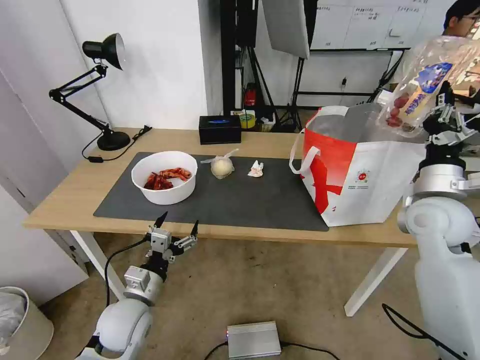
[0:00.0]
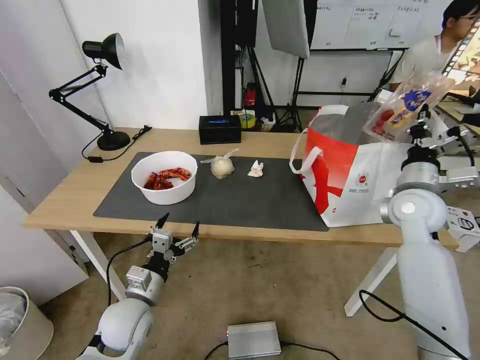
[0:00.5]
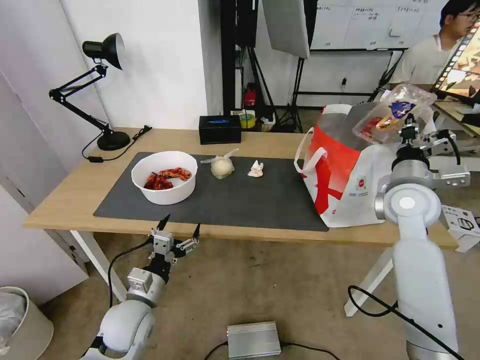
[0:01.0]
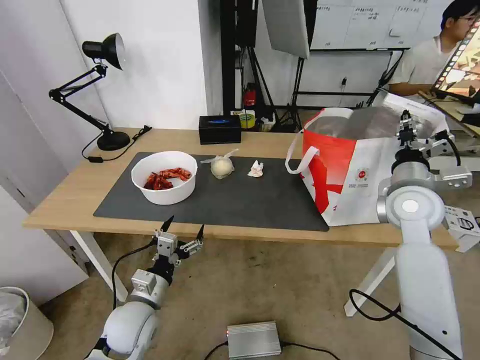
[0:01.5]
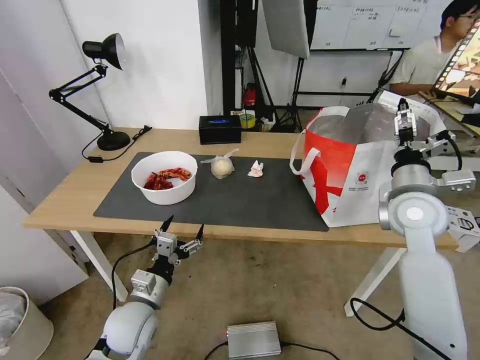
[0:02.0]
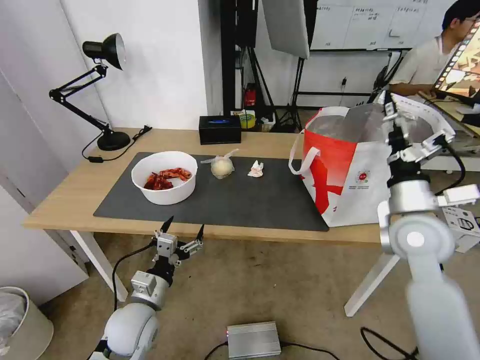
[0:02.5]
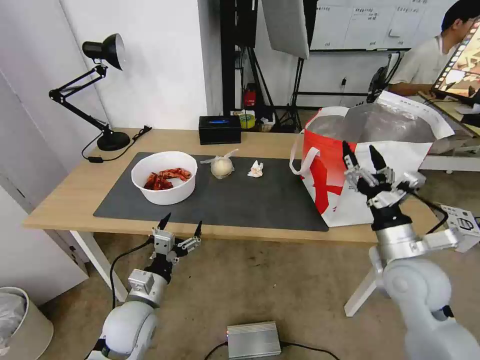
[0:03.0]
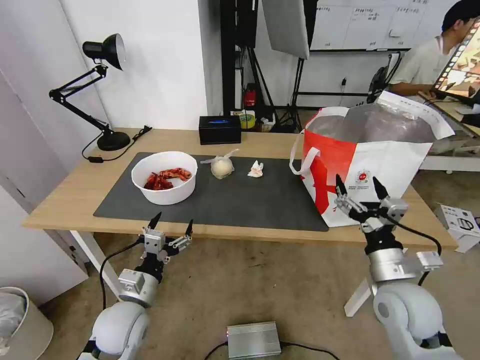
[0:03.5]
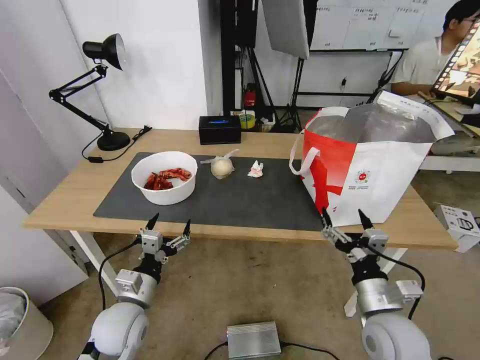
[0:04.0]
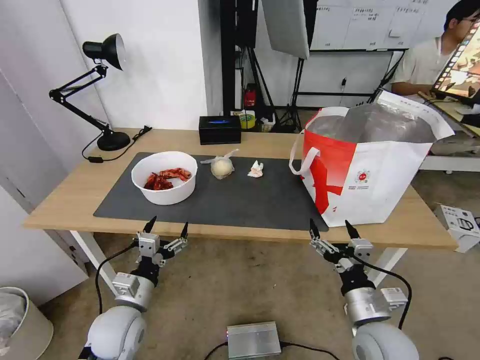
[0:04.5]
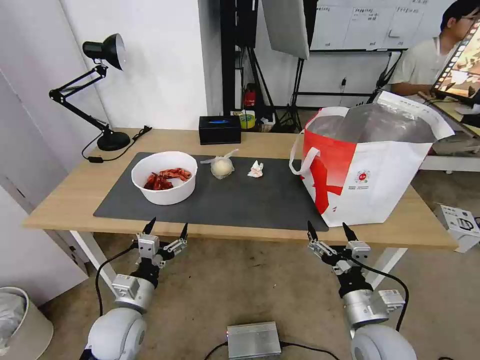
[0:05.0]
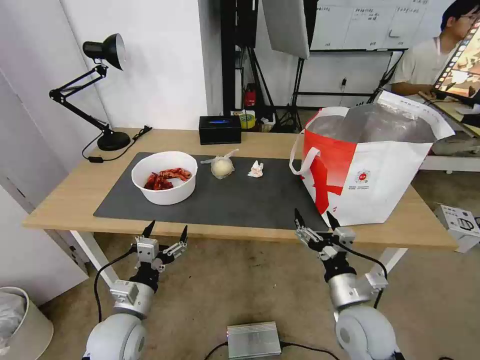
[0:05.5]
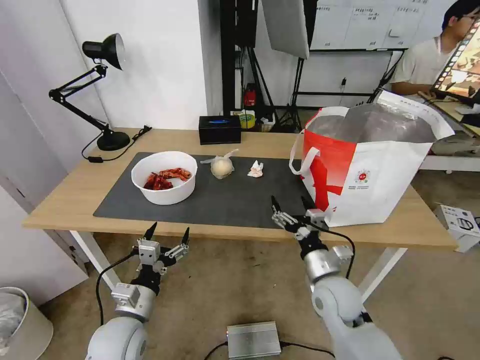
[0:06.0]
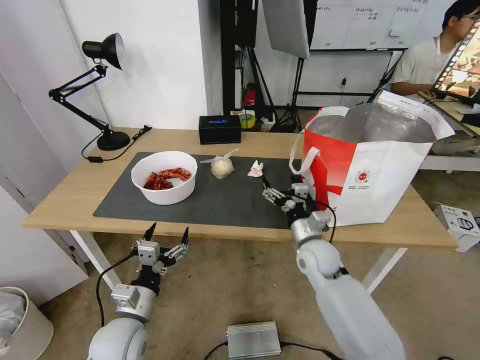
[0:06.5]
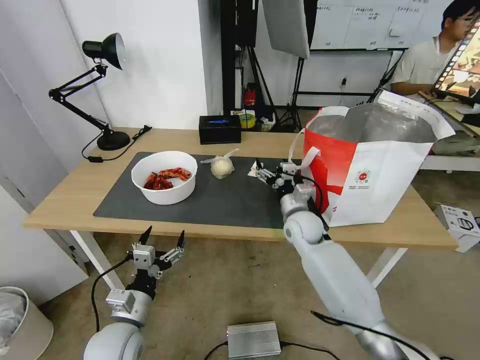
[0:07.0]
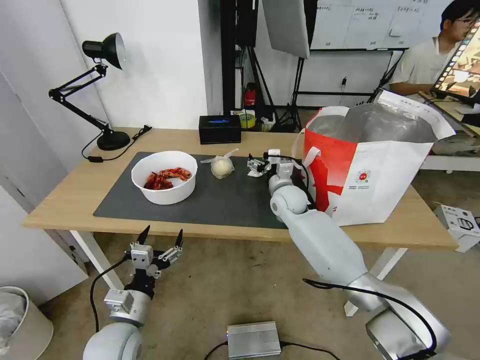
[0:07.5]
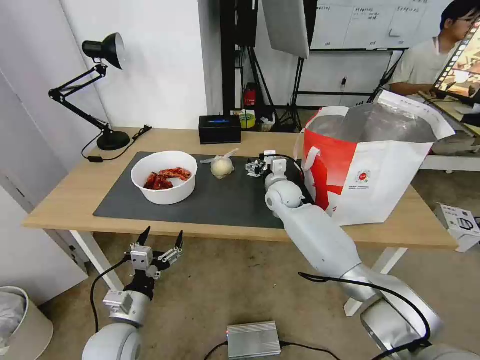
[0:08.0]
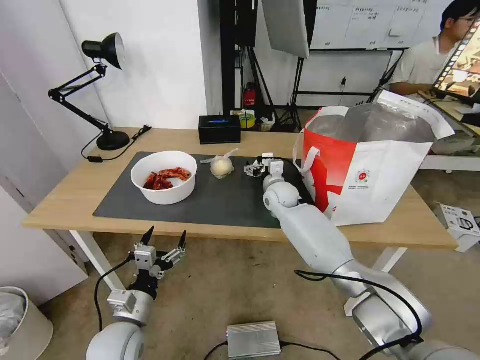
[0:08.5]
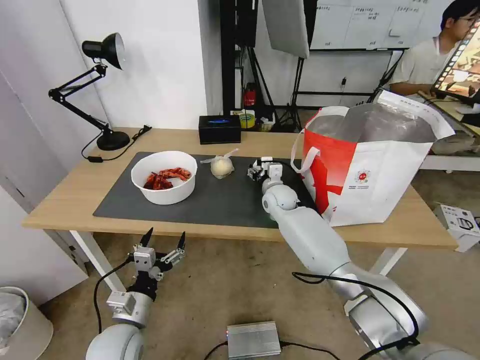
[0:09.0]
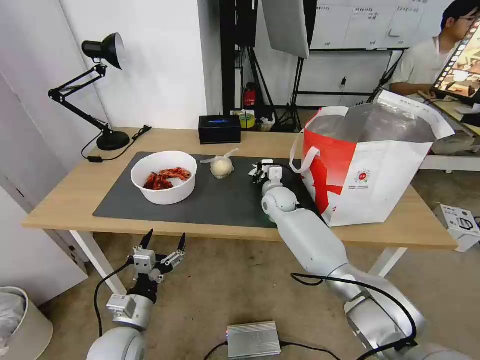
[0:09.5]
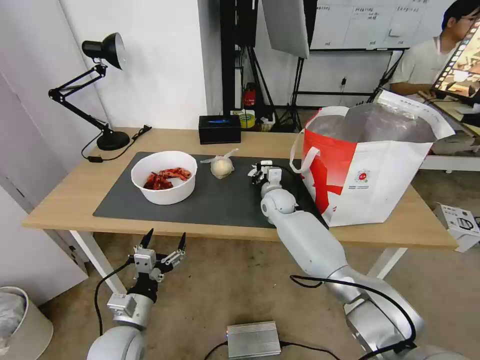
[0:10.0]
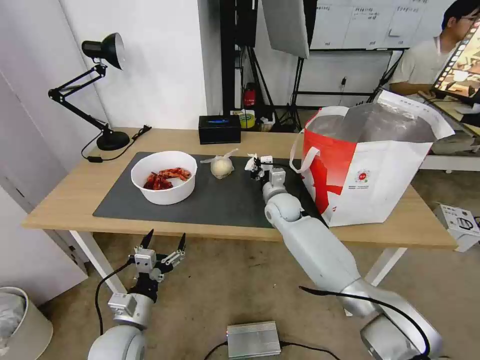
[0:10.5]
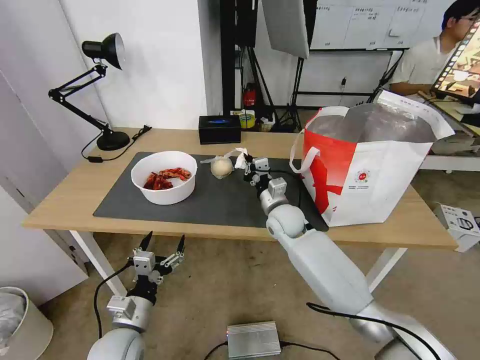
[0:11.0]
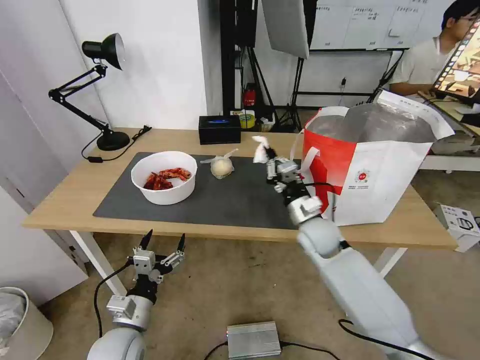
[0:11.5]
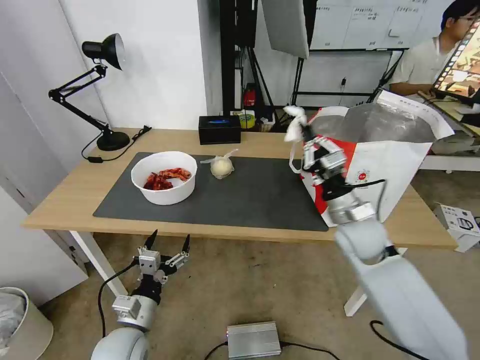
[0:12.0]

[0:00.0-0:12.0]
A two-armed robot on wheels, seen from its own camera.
Task of the whole recording: Pick up the trash from the table and place it into the takeout bag.
0:00.0 to 0:02.0: The right gripper opens up.
0:02.0 to 0:04.0: The right gripper is displaced backward and downward by some 25 cm.
0:04.0 to 0:06.0: The right gripper goes some 10 cm forward and to the left.
0:06.0 to 0:08.0: The right gripper moves forward, approximately 25 cm.
0:08.0 to 0:10.0: The right gripper closes its fingers.
0:10.0 to 0:12.0: The right gripper travels backward, to the right and upward by approximately 25 cm.

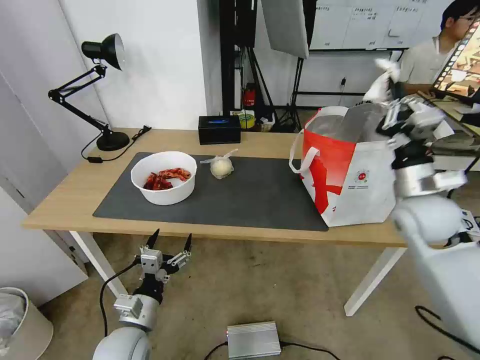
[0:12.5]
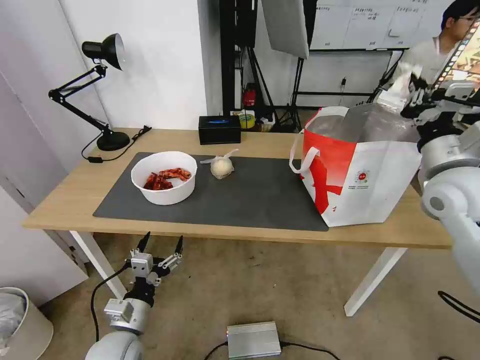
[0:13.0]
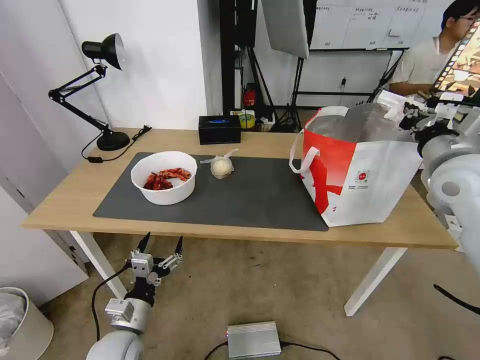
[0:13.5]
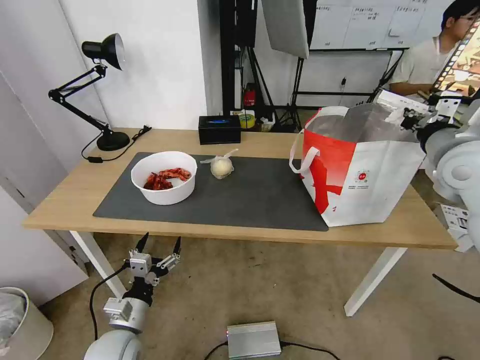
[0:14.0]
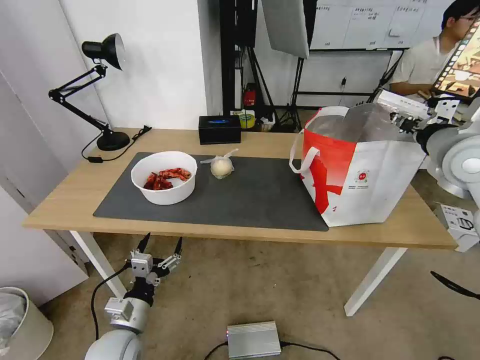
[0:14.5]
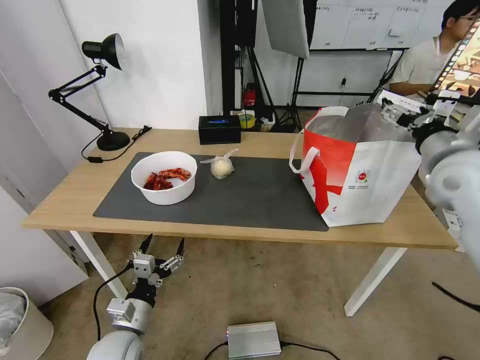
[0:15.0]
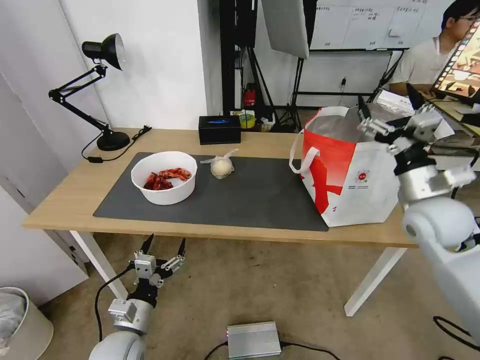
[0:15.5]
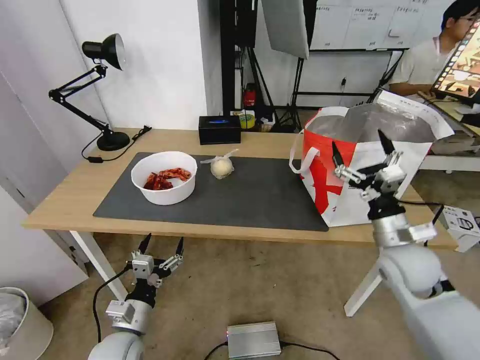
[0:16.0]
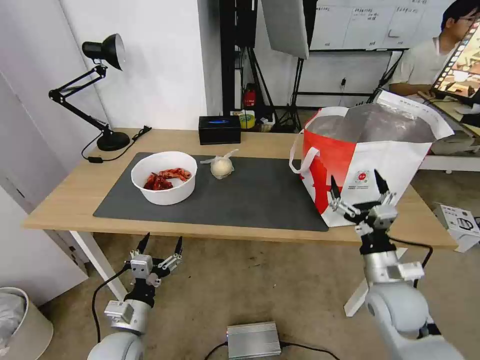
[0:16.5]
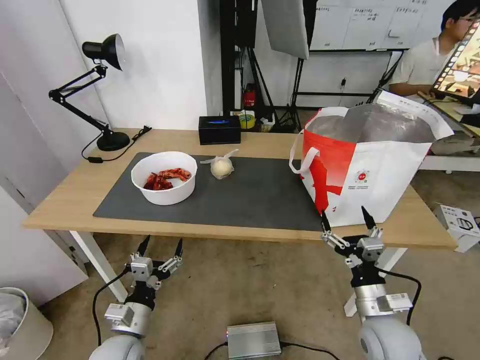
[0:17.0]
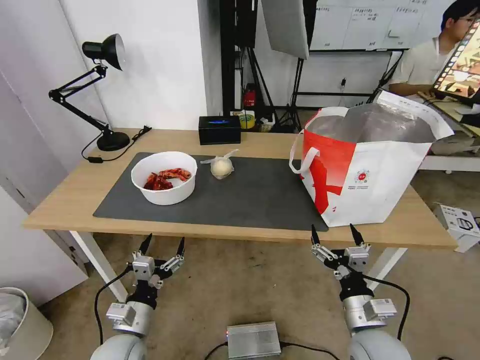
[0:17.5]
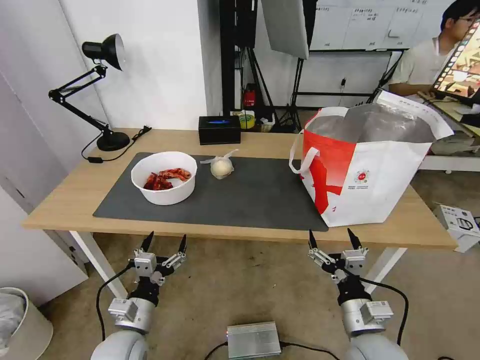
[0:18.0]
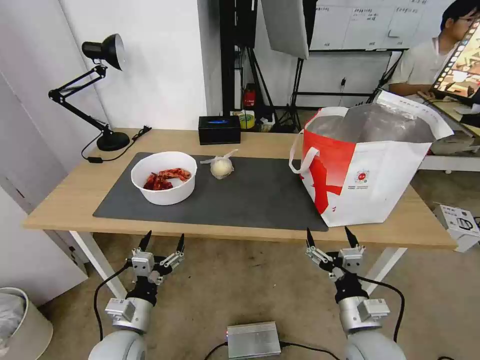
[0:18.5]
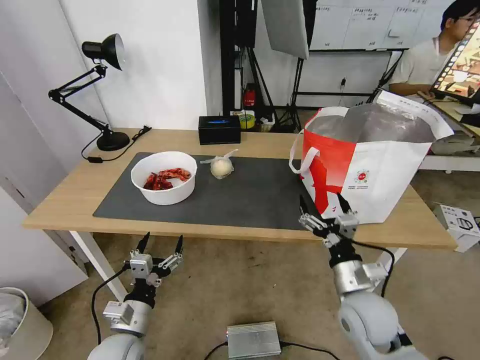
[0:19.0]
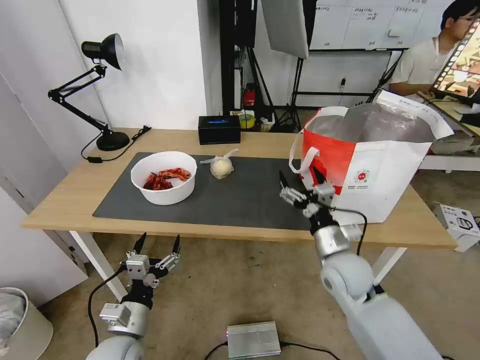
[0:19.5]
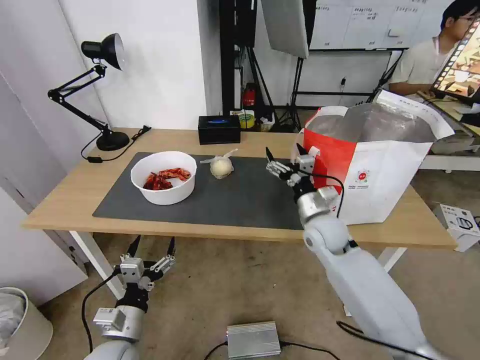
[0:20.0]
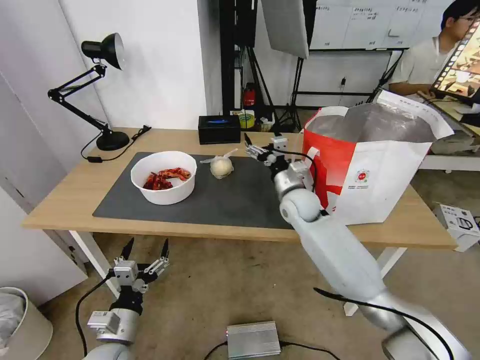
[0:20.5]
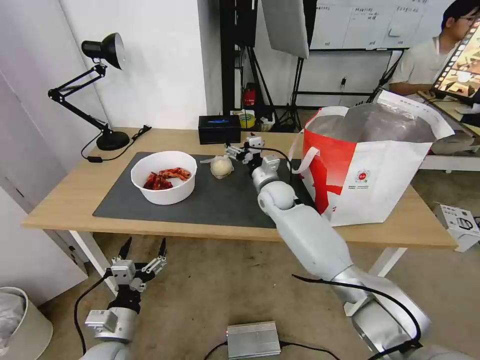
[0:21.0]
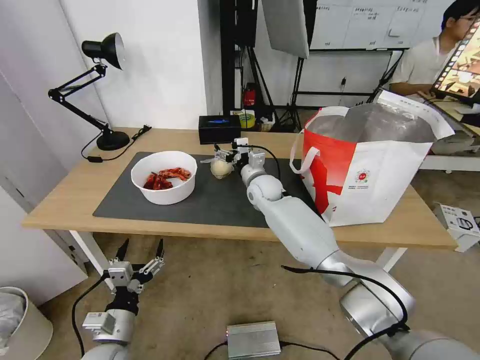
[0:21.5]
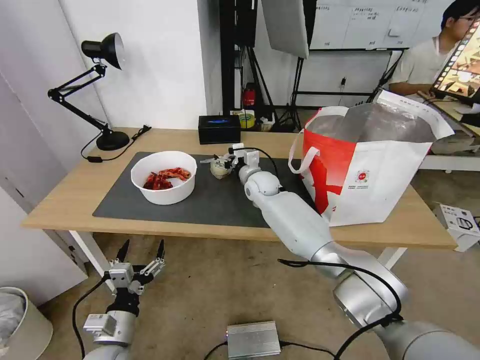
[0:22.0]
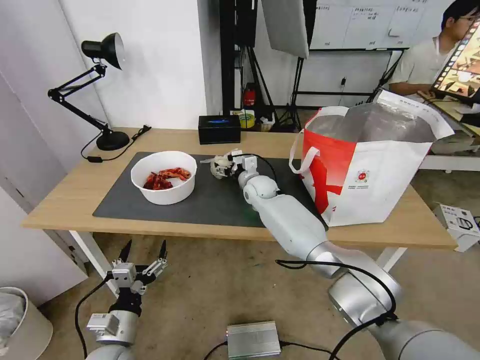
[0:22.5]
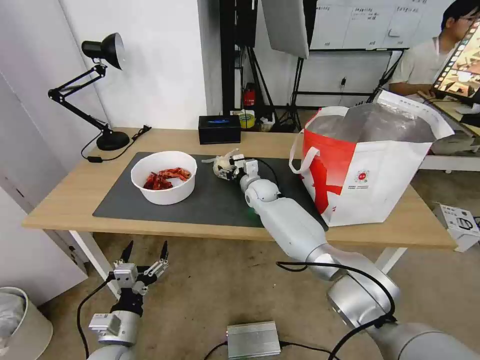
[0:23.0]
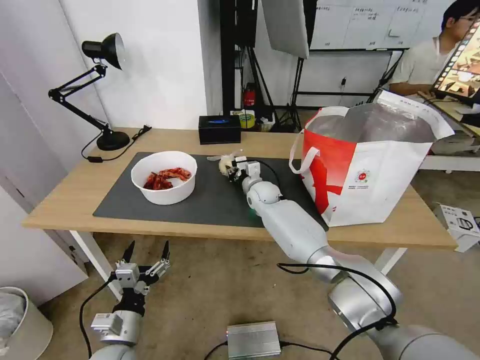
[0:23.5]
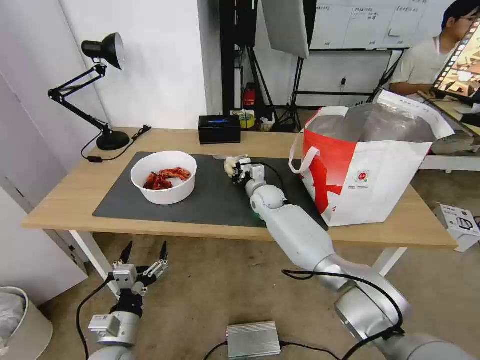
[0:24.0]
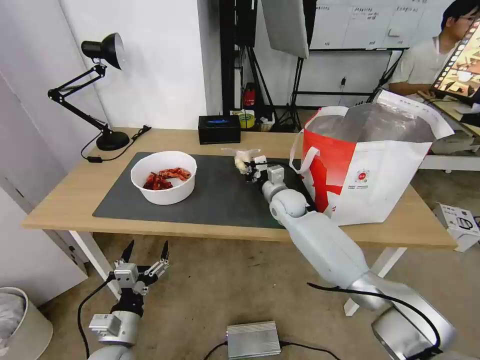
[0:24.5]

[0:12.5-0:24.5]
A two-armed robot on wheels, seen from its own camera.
Task of the whole recording: Pick up the trash from the table and place it into the takeout bag.
0:12.5 to 0:14.5: The right gripper goes some 10 cm upward, and opens up.
0:14.5 to 0:16.5: The right gripper goes some 30 cm downward and backward, and opens up.
0:16.5 to 0:18.5: The right gripper travels backward and to the left by about 10 cm.
0:18.5 to 0:20.5: The right gripper heads forward, covering about 30 cm.
0:20.5 to 0:22.5: The right gripper travels to the left and forward by some 15 cm.
0:22.5 to 0:24.5: The right gripper is displaced to the right and backward by some 10 cm, and closes its fingers.

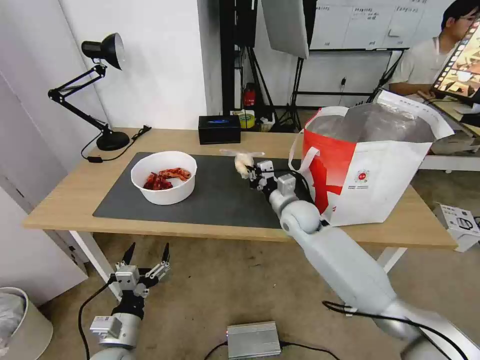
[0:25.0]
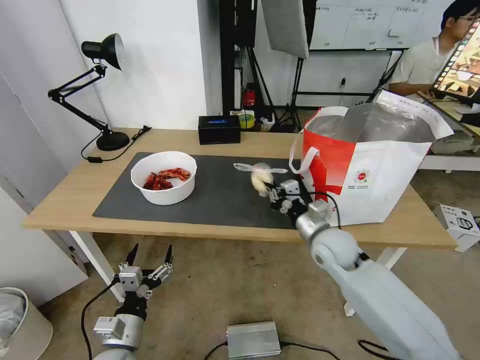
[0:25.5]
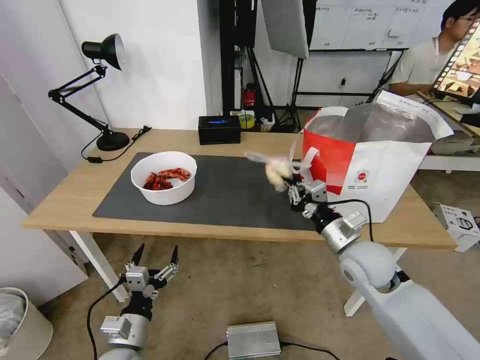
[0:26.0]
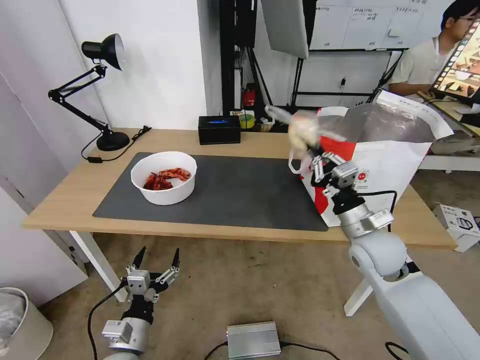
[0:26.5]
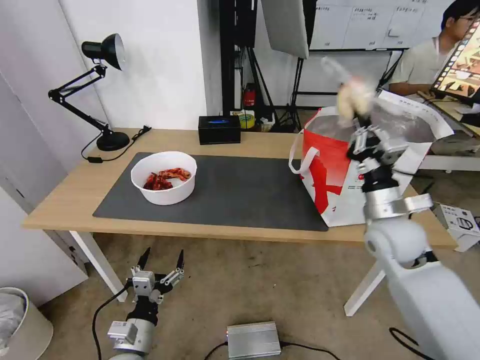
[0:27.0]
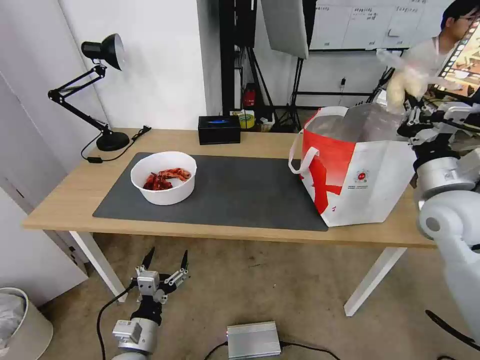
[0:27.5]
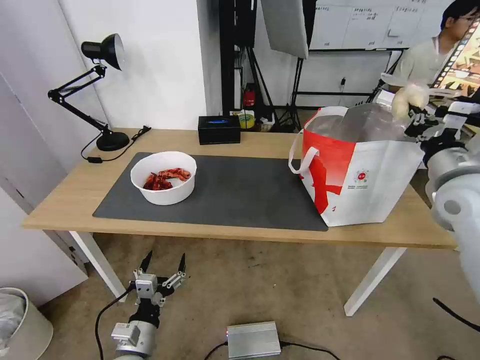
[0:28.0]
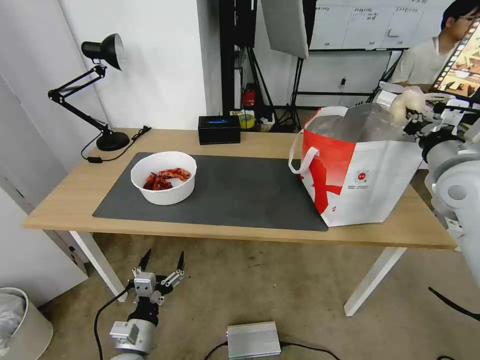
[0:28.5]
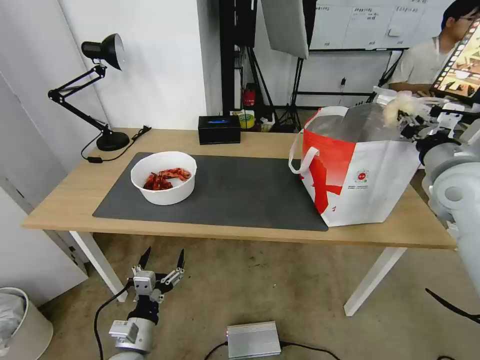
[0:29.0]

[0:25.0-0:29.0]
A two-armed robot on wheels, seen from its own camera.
Task of the whole recording: Pick up the trash from the table and place it into the takeout bag.
0:25.0 to 0:27.0: The right gripper is displaced to the right, backward and upward by about 20 cm.
0:27.0 to 0:29.0: The right gripper travels upward and to the right by about 15 cm, and opens.
